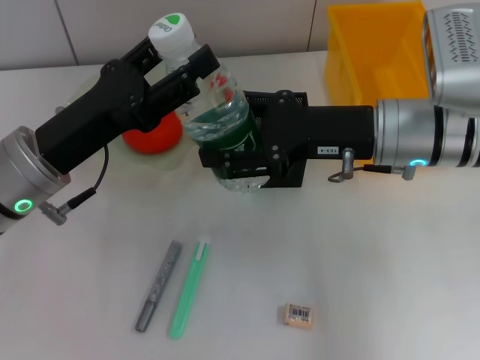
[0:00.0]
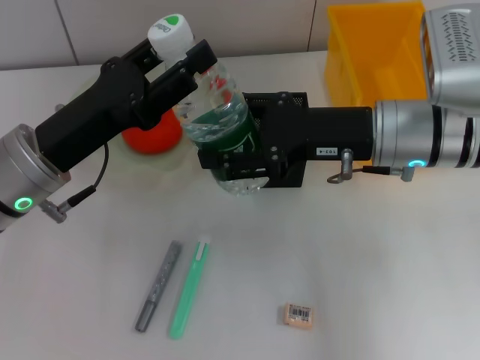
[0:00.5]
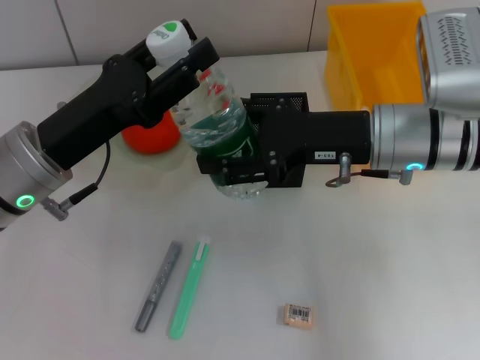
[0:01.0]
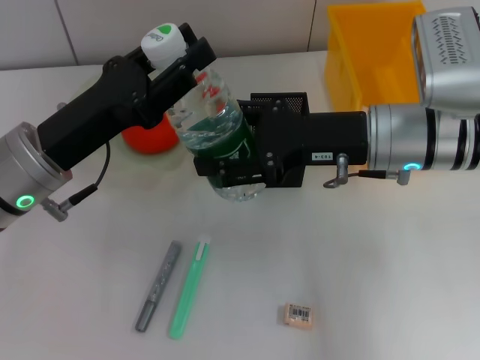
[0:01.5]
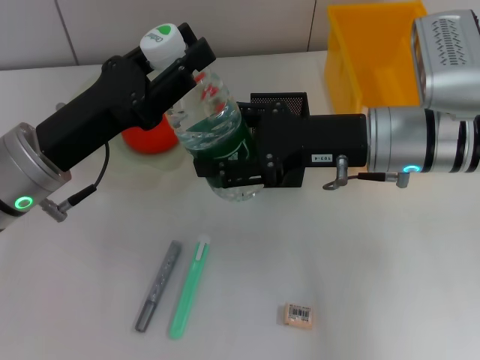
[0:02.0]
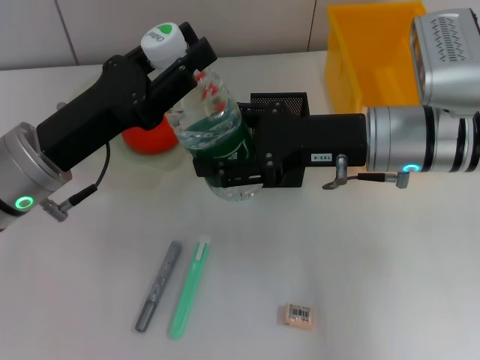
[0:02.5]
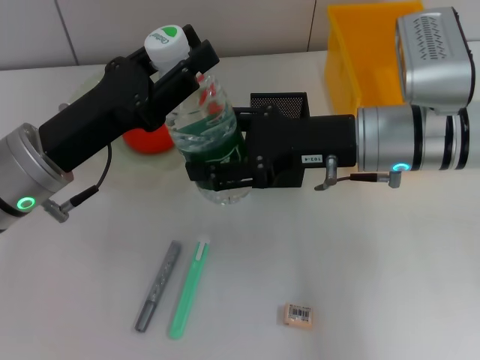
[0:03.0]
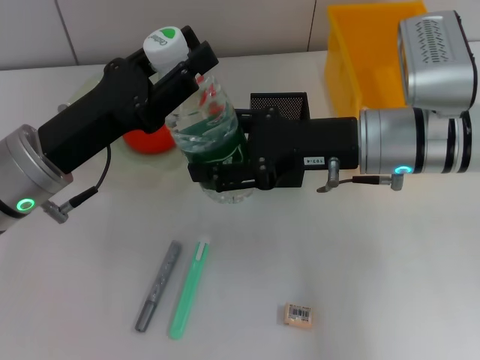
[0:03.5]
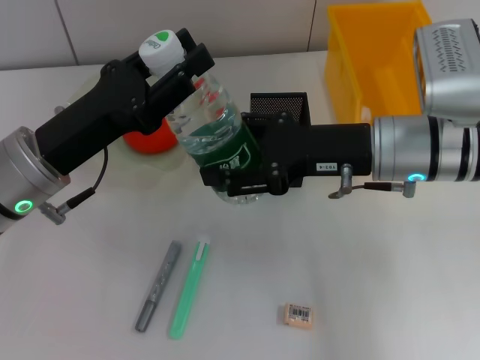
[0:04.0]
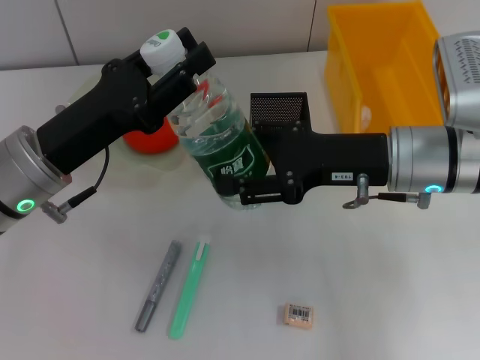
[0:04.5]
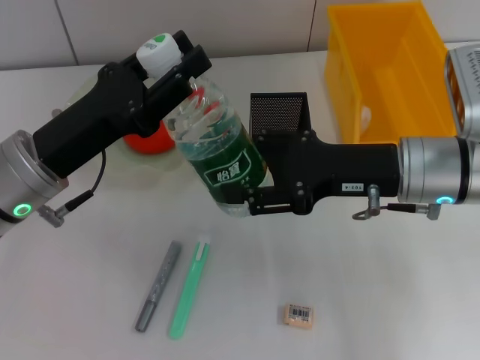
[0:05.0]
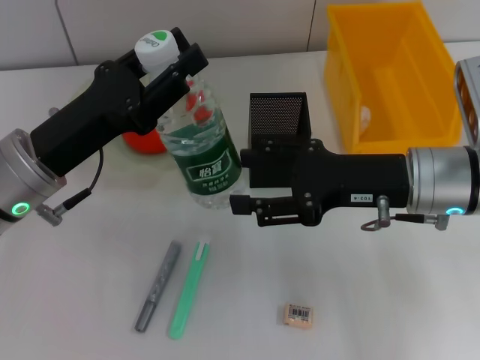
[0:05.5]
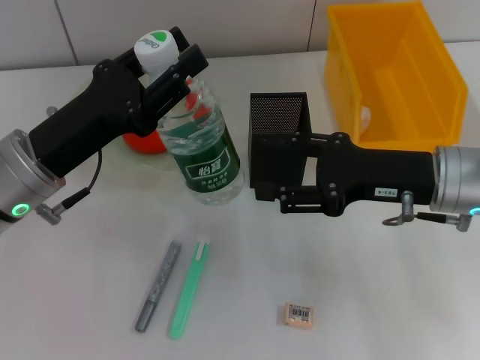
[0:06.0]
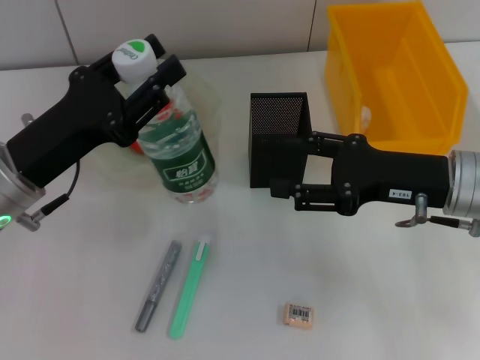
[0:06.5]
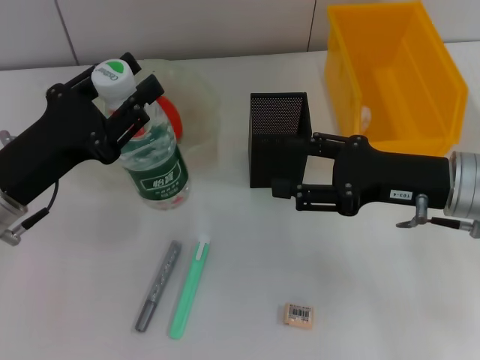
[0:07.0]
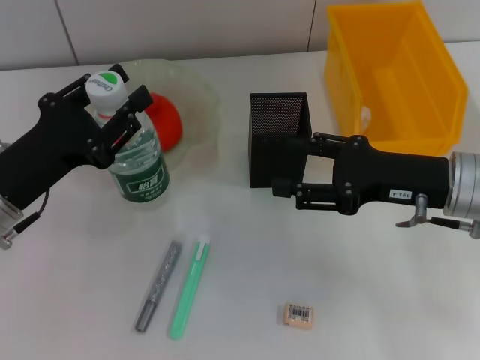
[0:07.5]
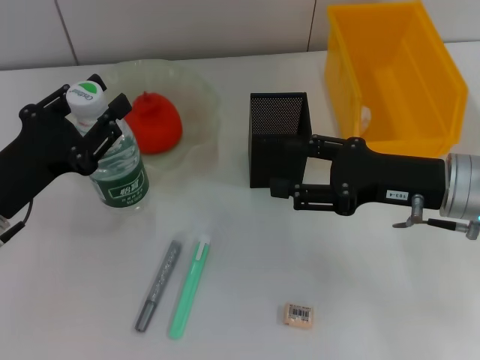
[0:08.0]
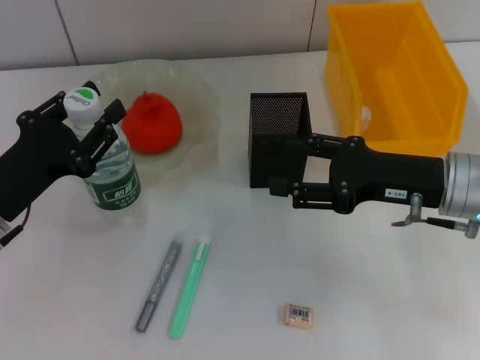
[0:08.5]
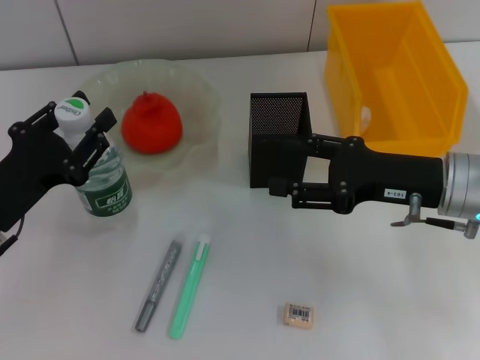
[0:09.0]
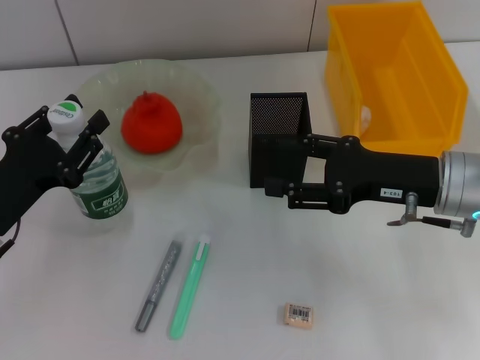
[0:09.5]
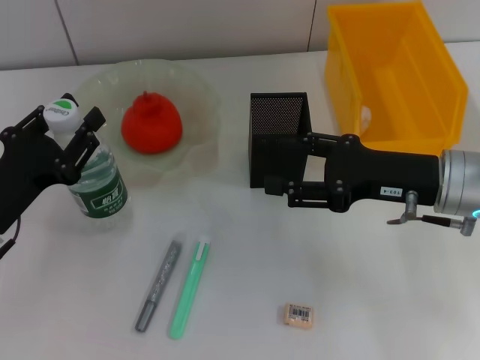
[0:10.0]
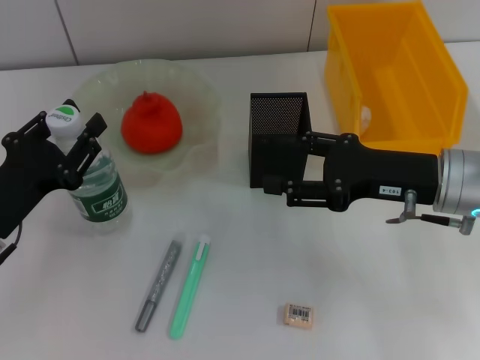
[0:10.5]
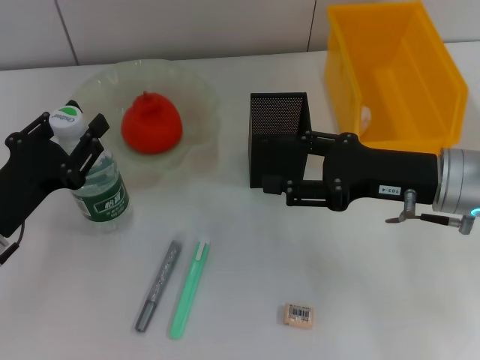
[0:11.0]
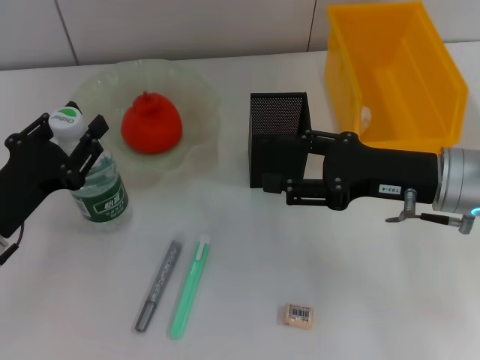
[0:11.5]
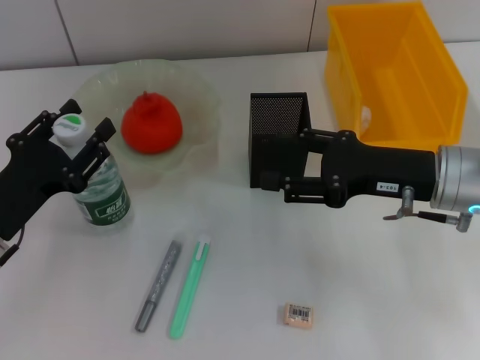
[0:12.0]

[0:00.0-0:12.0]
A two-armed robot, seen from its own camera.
Step, 0:00.0 to 0:05.0: Pass the water bottle from the right hand to the left hand.
0:00.0 to 0:02.0: The left gripper closes up.
0:02.0 to 0:04.0: Neither gripper changes place.
0:04.0 to 0:06.0: The right gripper changes place by about 5 cm.
0:06.0 to 0:08.0: The left gripper goes approximately 5 cm to the left.
0:08.0 to 0:10.0: The grippers stay close to where they were, moving slightly.
0:10.0 to 0:12.0: Both grippers stay put.

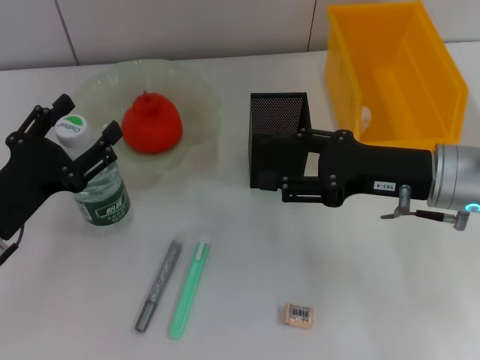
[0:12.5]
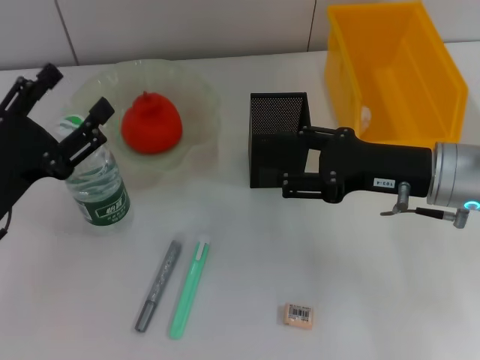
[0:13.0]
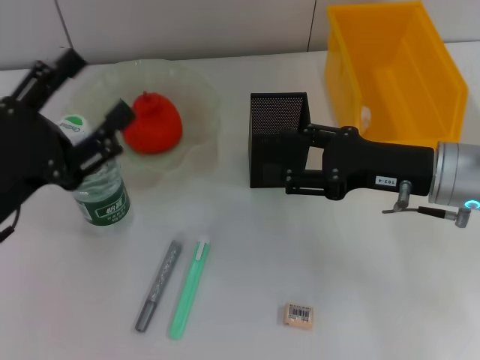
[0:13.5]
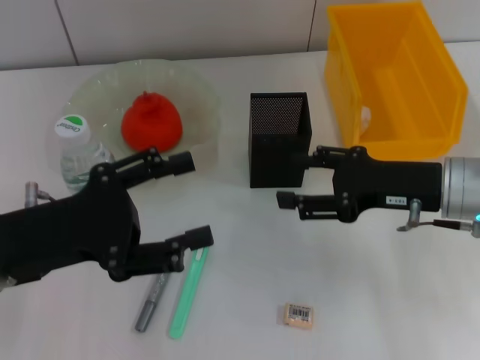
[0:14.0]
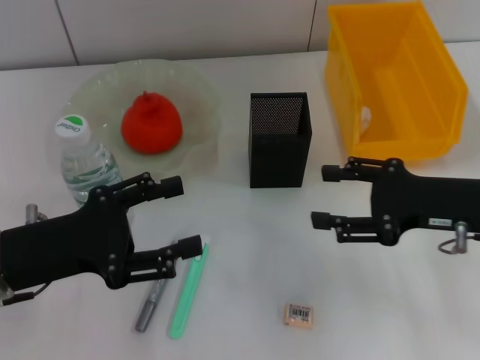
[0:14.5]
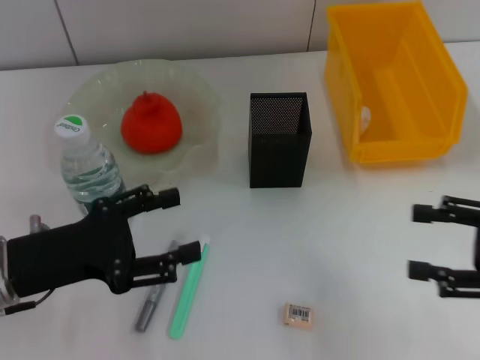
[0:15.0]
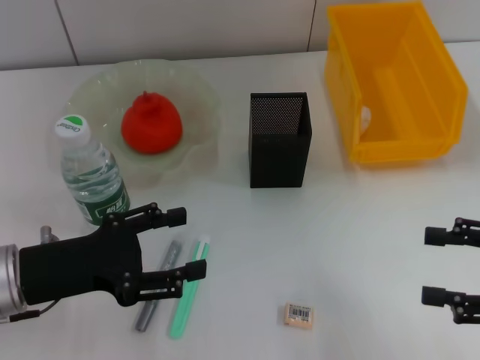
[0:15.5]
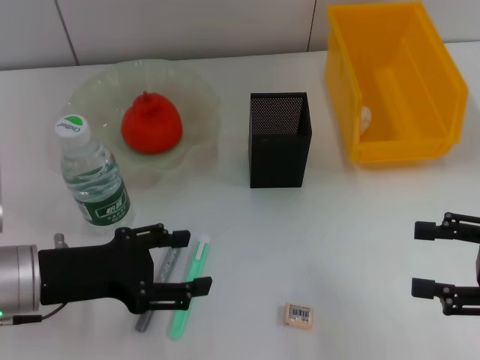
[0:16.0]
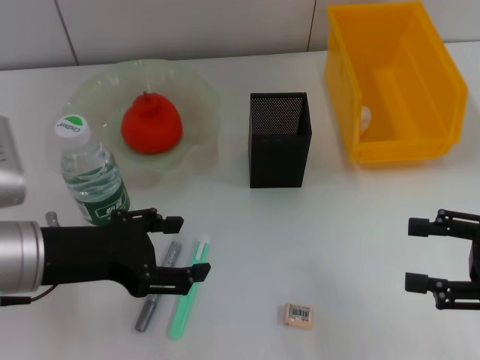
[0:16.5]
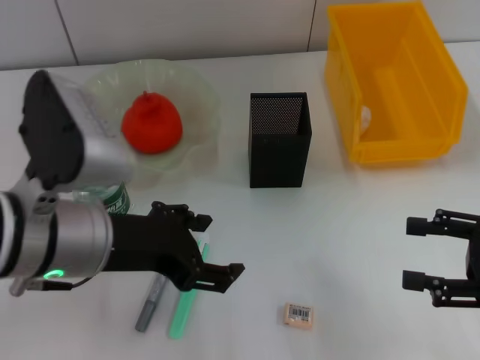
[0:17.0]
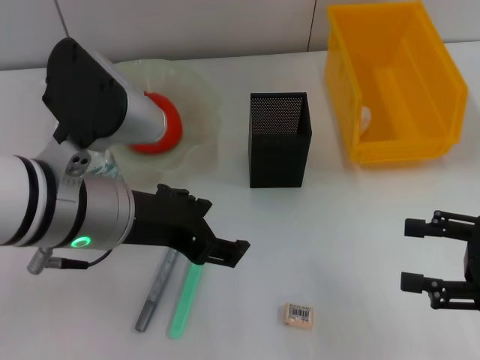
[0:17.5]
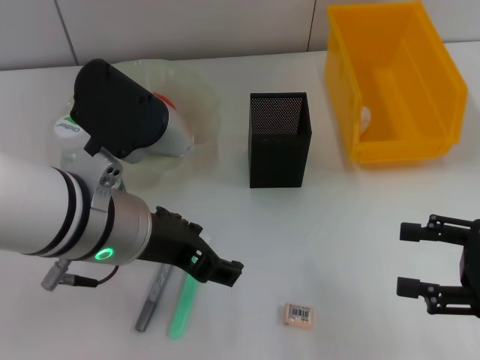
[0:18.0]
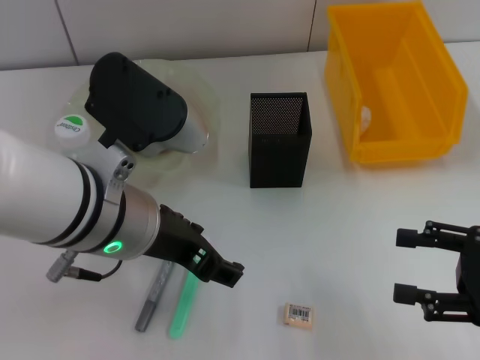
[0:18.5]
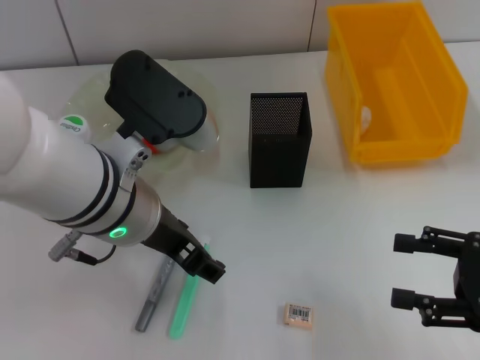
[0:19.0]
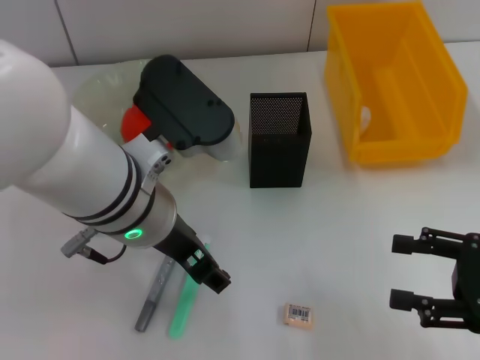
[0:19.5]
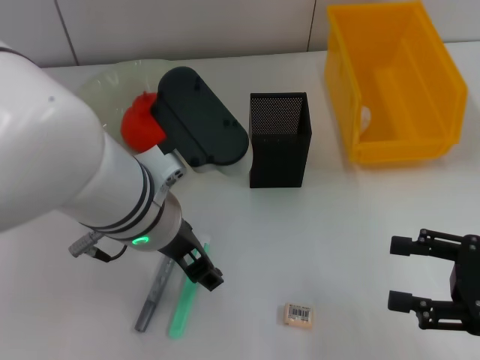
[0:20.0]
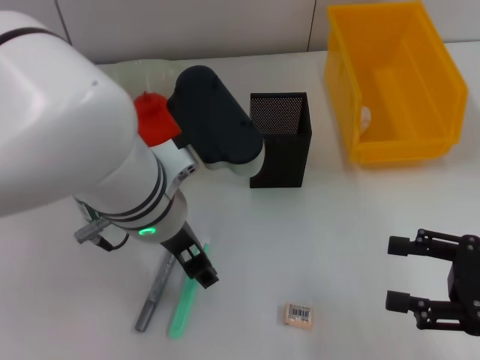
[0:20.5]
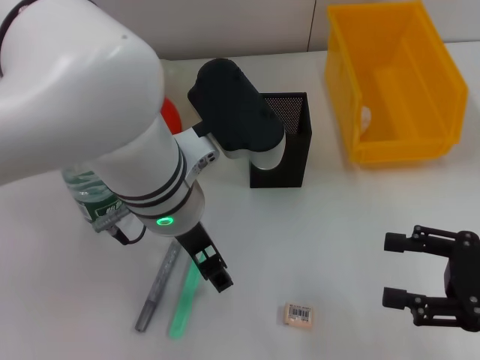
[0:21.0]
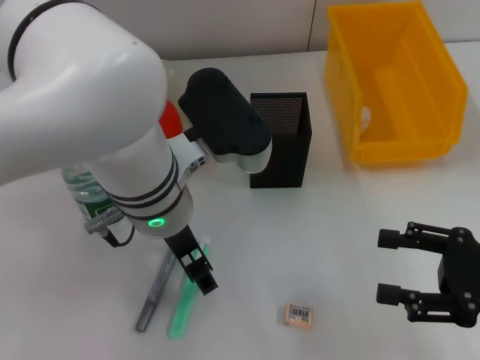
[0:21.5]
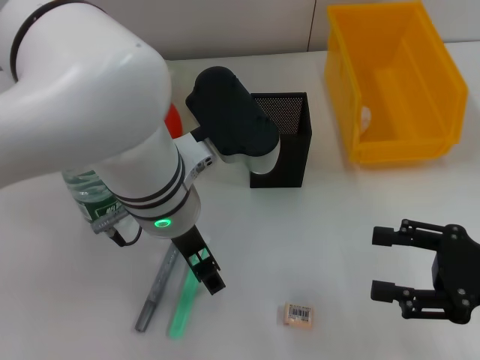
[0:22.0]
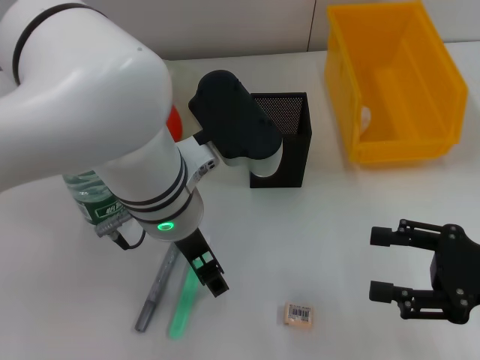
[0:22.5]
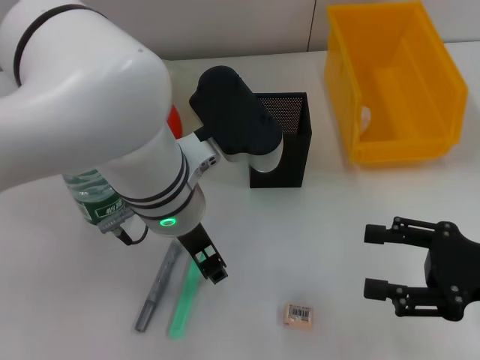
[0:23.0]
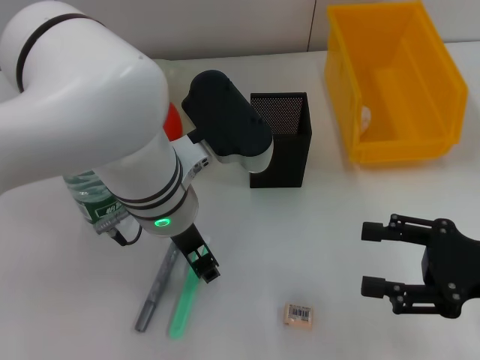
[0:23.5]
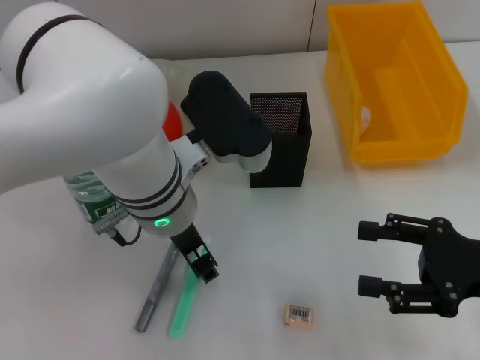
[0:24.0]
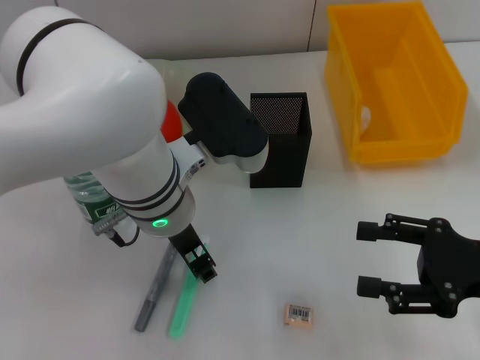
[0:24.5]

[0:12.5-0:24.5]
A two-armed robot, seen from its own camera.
0:12.5 to 0:14.5: The right gripper moves approximately 5 cm, while the left gripper ends up roughly 5 cm from where it was.
0:14.5 to 0:16.5: The right gripper shifts roughly 10 cm backward and to the right.
0:16.5 to 0:18.5: The left gripper is displaced to the right by roughly 10 cm.
0:22.5 to 0:24.5: The left gripper closes its fingers.

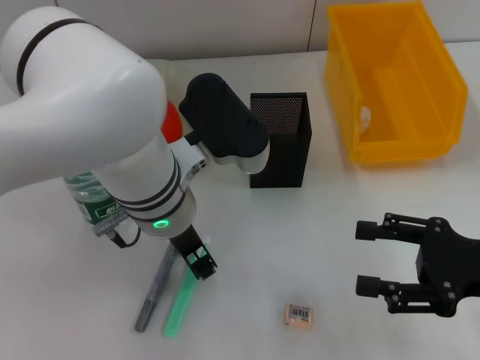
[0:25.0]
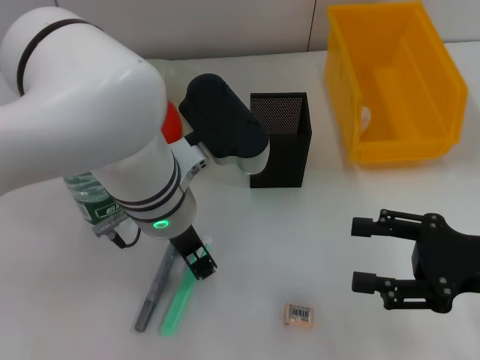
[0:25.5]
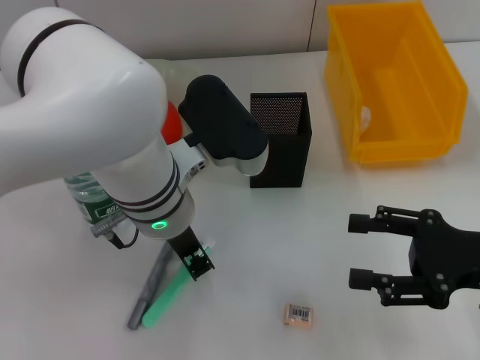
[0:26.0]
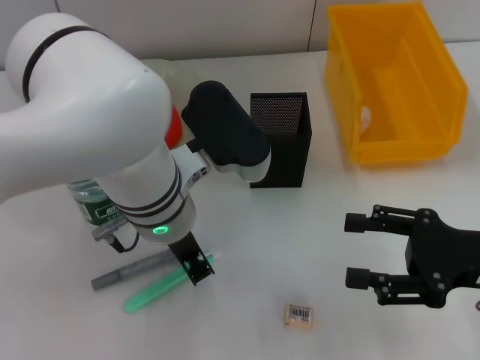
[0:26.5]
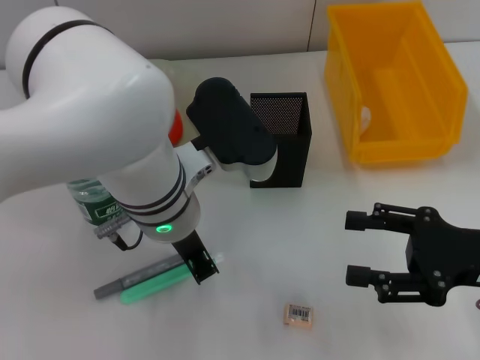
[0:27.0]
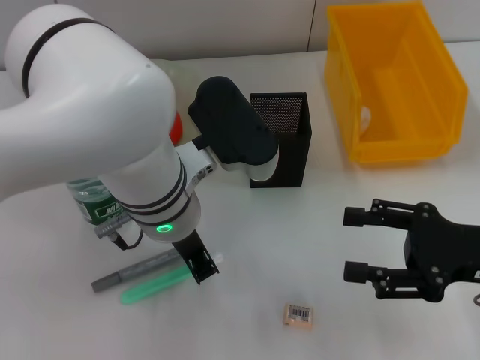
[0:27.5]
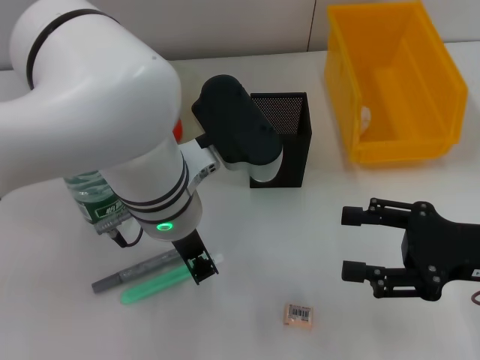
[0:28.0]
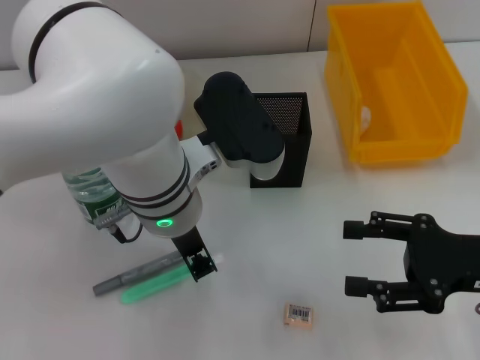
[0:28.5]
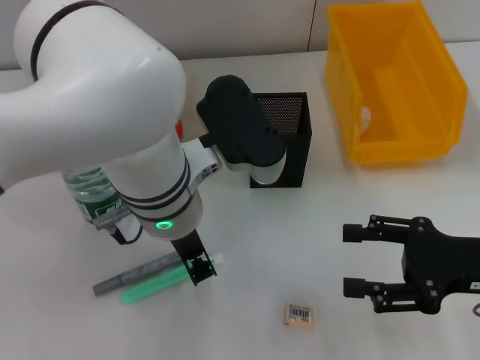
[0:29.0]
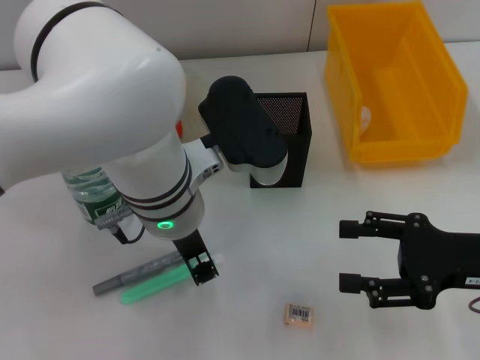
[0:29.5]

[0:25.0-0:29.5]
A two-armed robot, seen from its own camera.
0:25.0 to 0:27.0: The left gripper closes up.
0:27.0 to 0:29.5: Both grippers stay about where they are.
